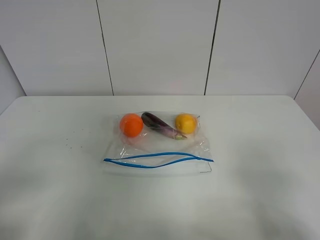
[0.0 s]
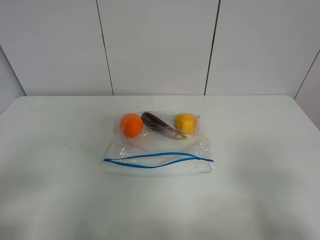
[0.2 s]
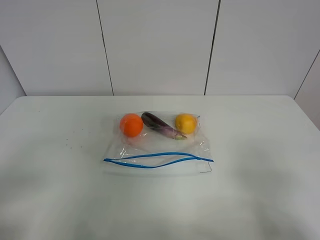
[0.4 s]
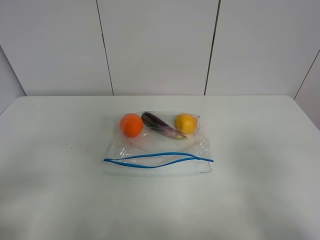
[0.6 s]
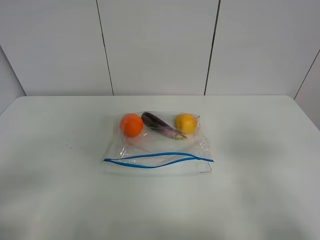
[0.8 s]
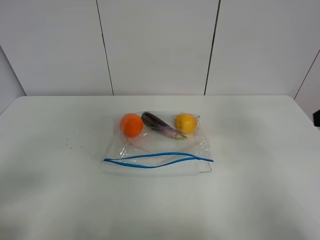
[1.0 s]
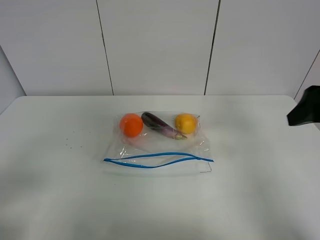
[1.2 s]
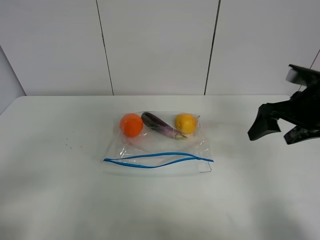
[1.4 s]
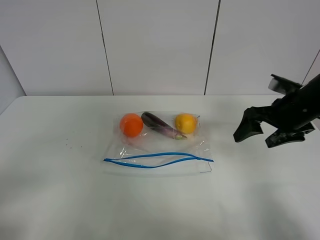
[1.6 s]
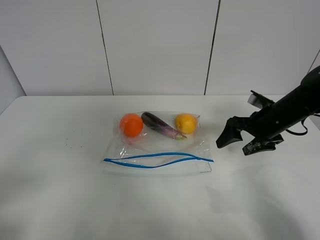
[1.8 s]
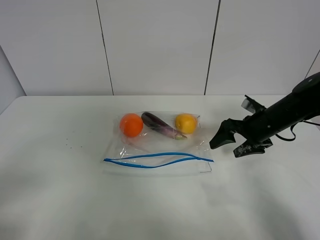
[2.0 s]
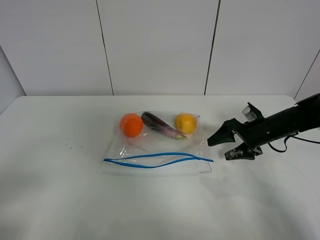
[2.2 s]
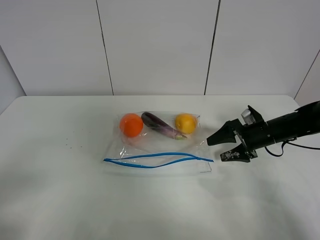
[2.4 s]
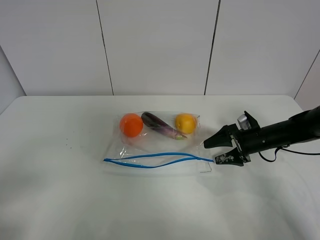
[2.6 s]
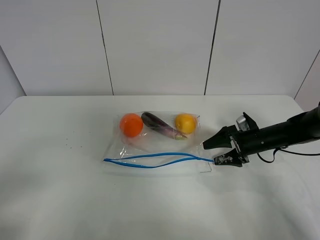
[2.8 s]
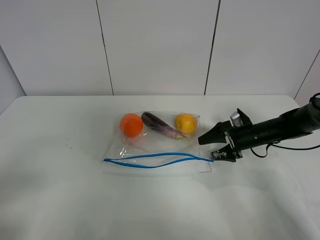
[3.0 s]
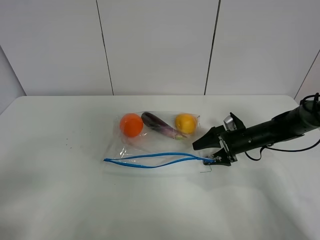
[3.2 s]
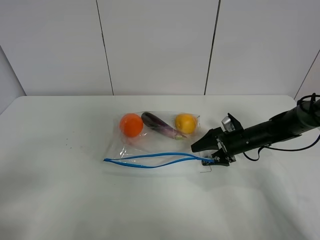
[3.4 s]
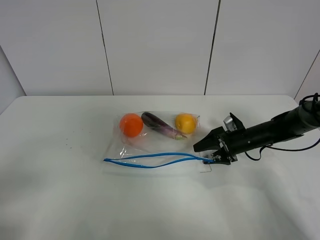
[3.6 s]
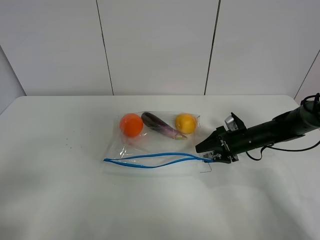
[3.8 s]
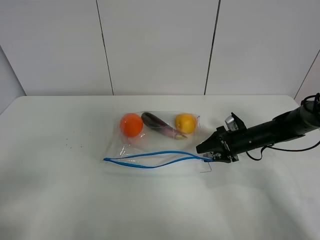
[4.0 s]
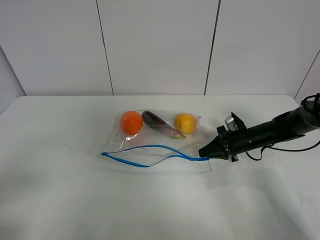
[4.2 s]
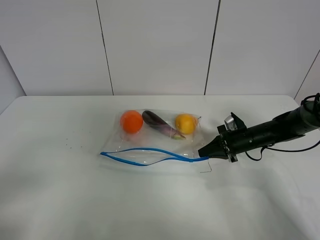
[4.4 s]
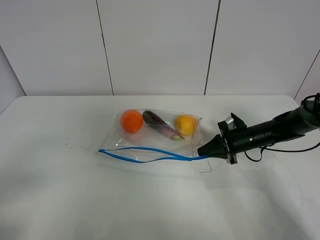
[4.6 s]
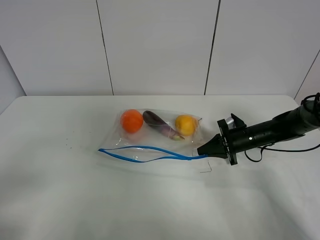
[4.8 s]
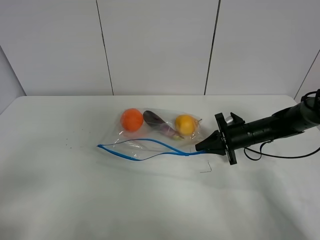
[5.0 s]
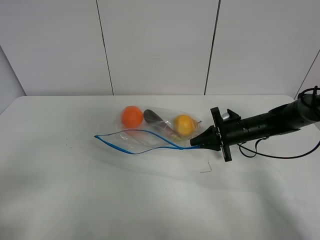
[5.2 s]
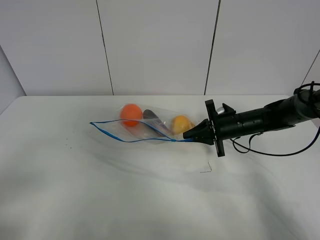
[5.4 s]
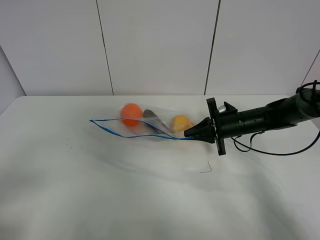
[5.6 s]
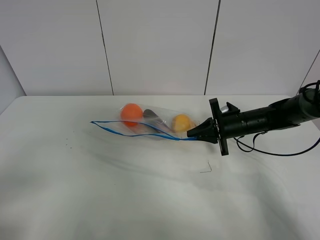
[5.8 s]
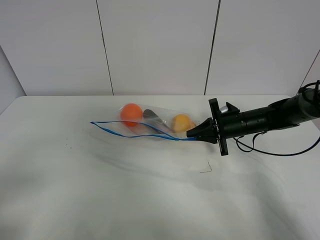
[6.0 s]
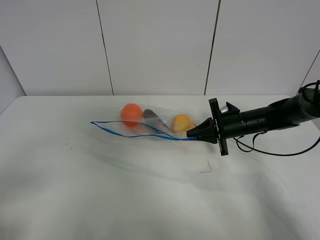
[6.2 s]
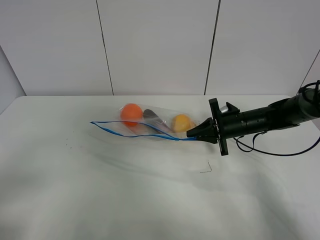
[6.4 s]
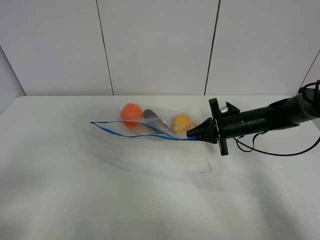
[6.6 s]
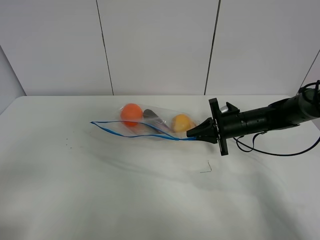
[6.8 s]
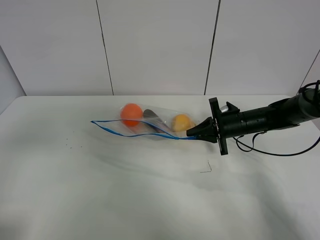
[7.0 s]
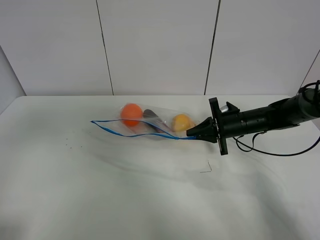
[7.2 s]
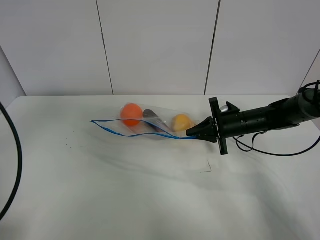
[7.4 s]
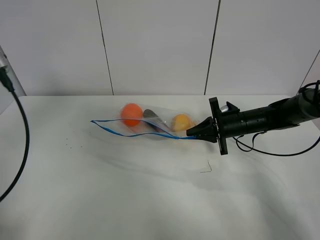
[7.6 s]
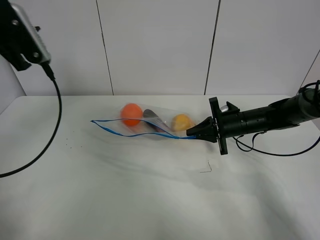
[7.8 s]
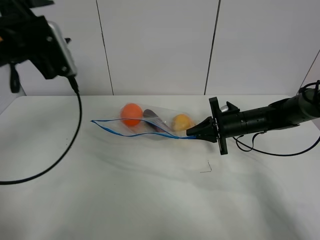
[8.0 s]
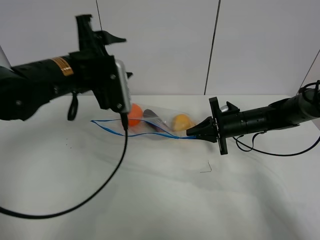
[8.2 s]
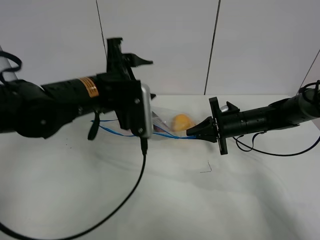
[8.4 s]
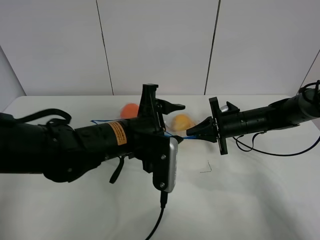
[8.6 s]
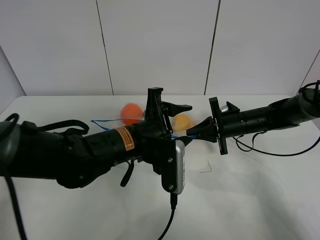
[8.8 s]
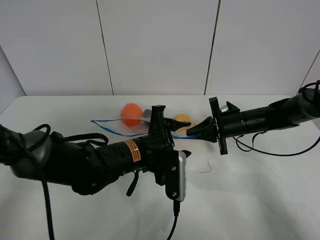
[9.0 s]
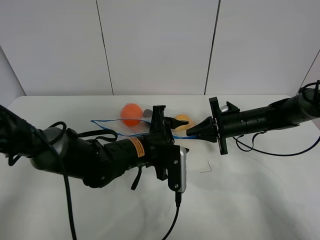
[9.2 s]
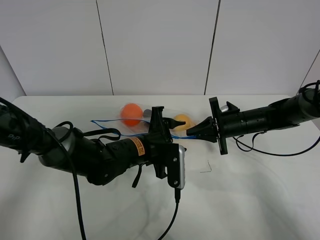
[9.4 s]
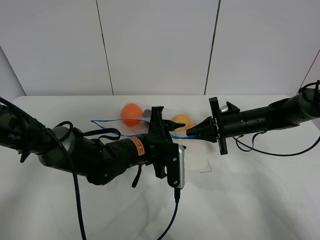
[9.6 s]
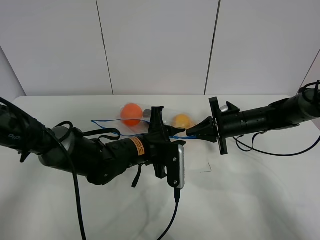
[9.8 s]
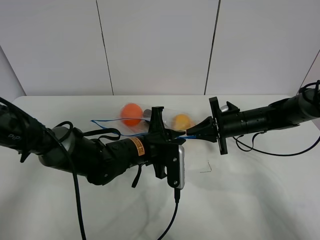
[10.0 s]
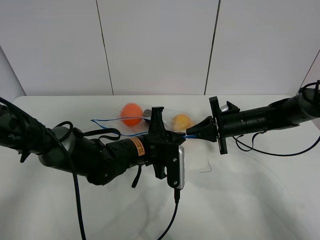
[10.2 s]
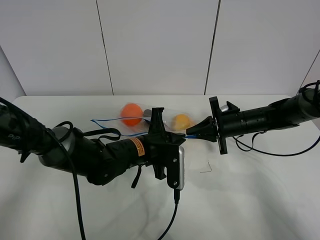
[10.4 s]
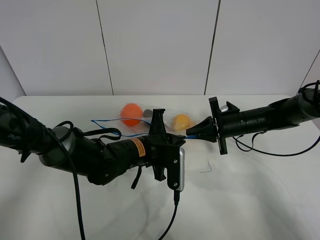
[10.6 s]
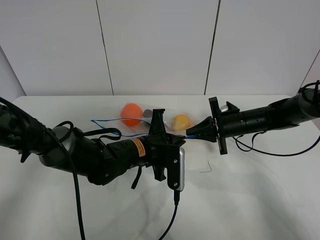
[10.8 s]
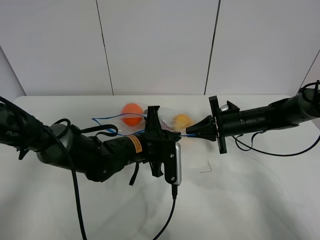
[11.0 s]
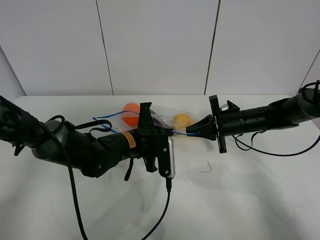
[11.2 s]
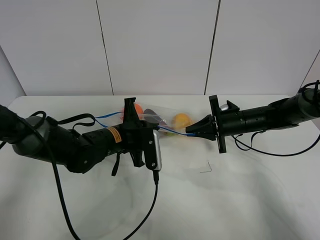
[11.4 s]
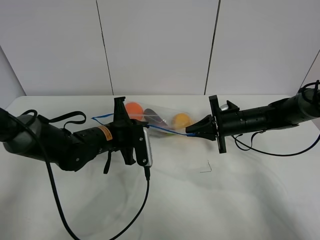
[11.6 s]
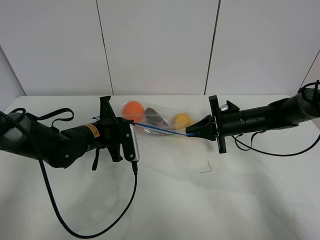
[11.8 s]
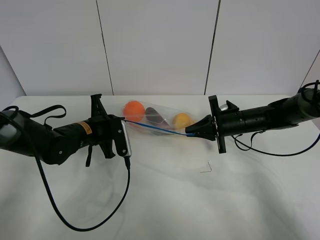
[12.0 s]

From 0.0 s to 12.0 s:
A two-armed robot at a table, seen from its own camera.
Step, from 0.0 s to 4.4 s: Grasp the fruit bag with right gripper.
Step, from 4.6 s to 5.6 s: Lift the fruit bag with your right gripper.
From 0.0 s to 1.6 s: The right gripper heads forward, covering approximately 30 cm.
From 1.6 s to 3.0 s: The right gripper shifts roughly 15 cm downward and forward.
From 3.0 s to 4.4 s: The right gripper closes.
From 4.4 s to 6.0 s: The right gripper shifts by roughly 5 cm.
From 6.0 s to 7.6 s: The left gripper is displaced forward and upward by roughly 25 cm.
From 7.6 s to 9.0 s: The left gripper goes roughly 35 cm to the right and downward.
From 9.0 s to 10.4 s: The left gripper closes up.
From 10.4 s to 12.0 s: The left gripper travels to the left and forward by about 15 cm.

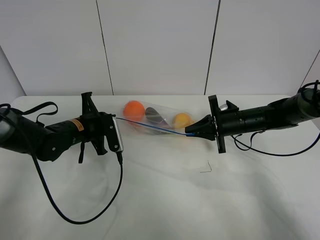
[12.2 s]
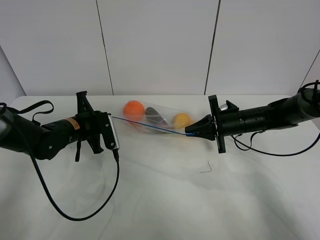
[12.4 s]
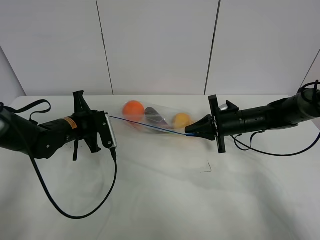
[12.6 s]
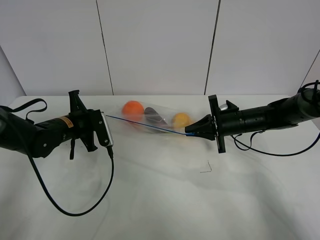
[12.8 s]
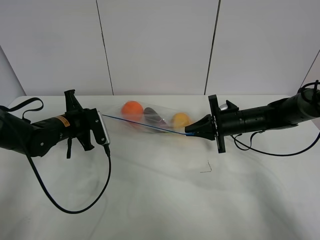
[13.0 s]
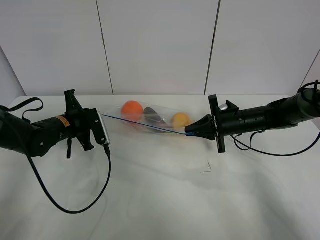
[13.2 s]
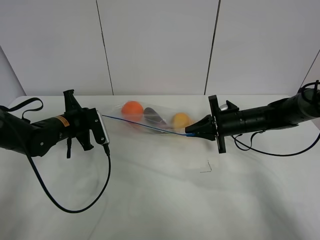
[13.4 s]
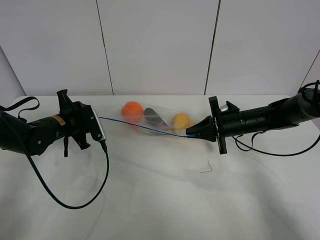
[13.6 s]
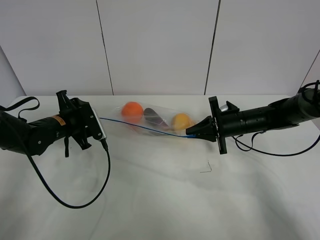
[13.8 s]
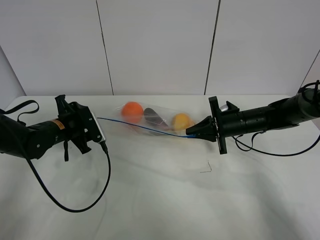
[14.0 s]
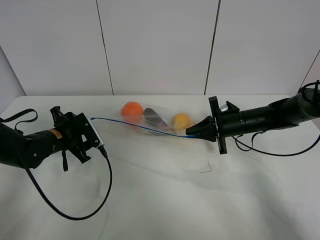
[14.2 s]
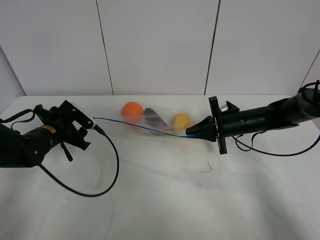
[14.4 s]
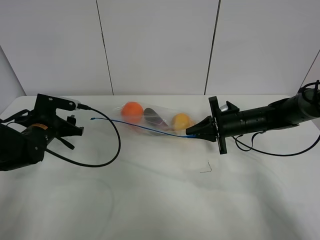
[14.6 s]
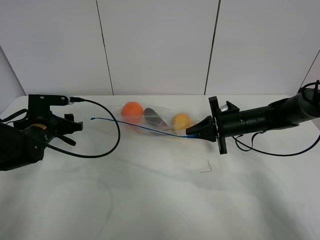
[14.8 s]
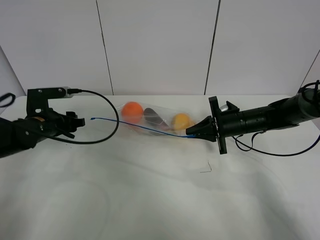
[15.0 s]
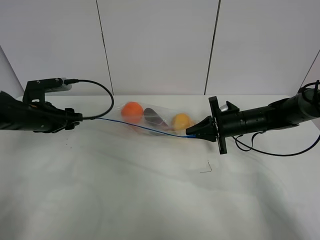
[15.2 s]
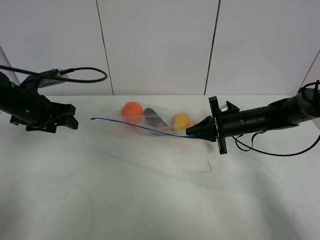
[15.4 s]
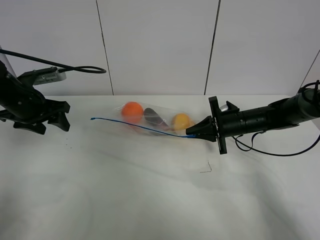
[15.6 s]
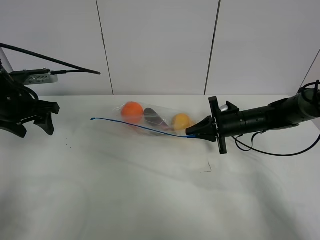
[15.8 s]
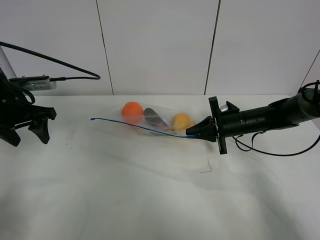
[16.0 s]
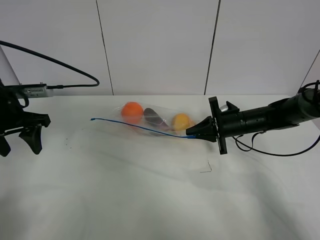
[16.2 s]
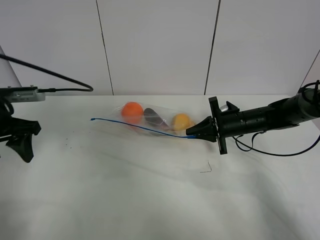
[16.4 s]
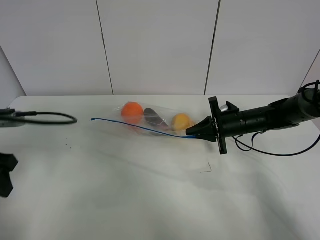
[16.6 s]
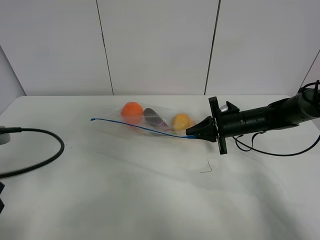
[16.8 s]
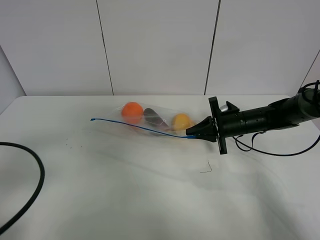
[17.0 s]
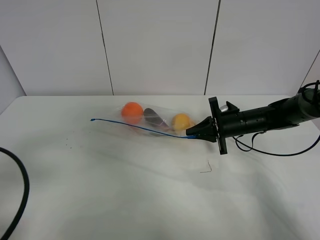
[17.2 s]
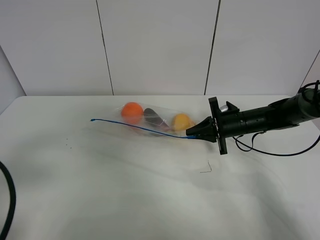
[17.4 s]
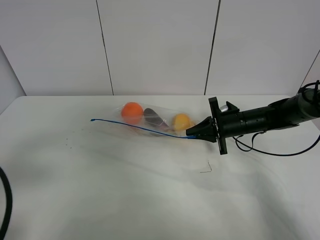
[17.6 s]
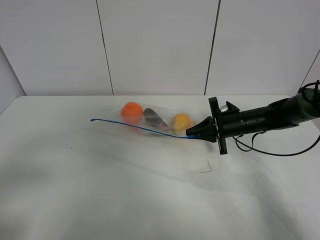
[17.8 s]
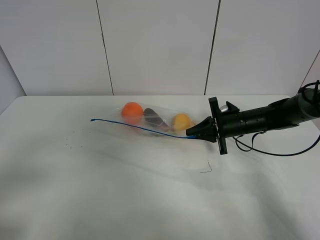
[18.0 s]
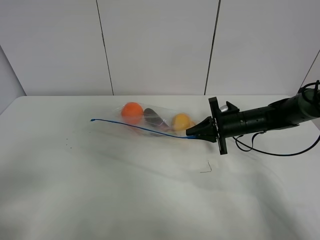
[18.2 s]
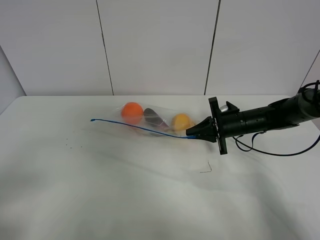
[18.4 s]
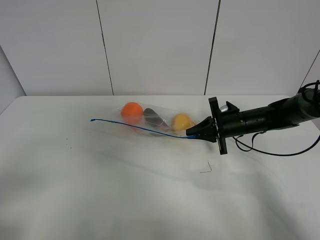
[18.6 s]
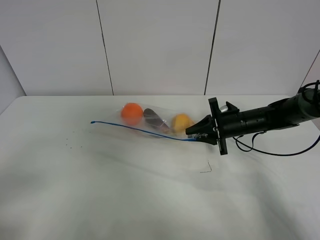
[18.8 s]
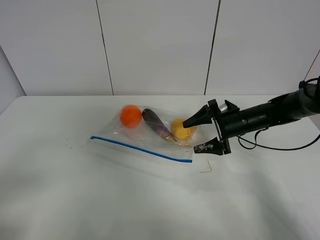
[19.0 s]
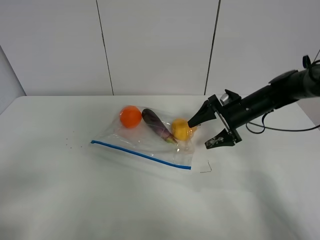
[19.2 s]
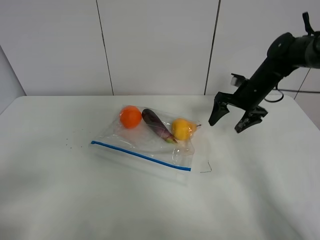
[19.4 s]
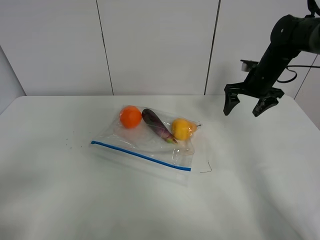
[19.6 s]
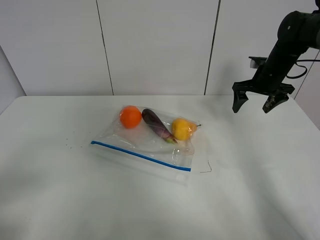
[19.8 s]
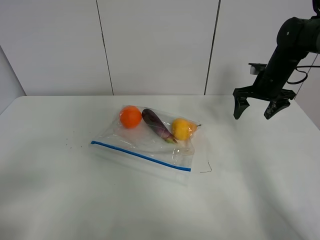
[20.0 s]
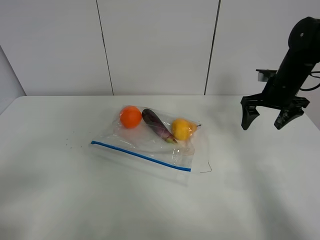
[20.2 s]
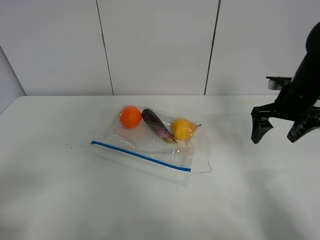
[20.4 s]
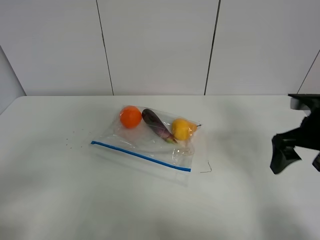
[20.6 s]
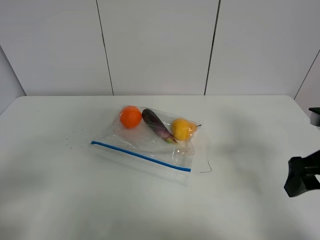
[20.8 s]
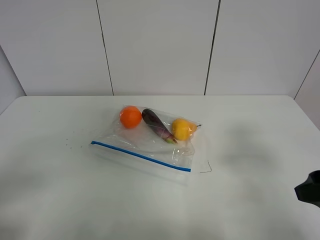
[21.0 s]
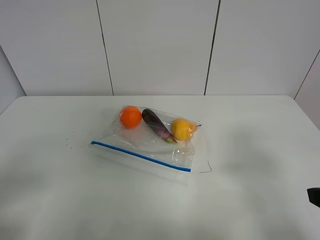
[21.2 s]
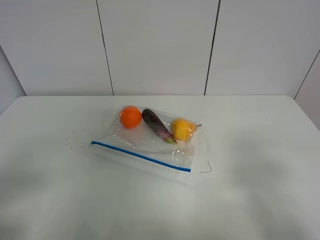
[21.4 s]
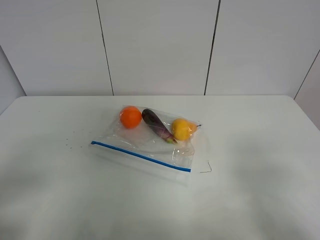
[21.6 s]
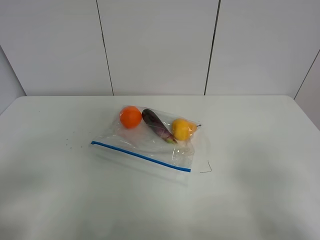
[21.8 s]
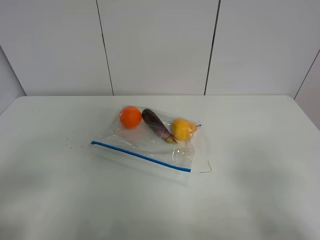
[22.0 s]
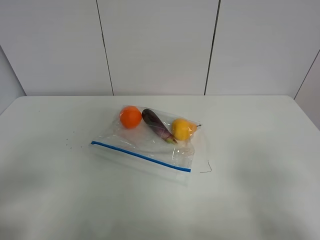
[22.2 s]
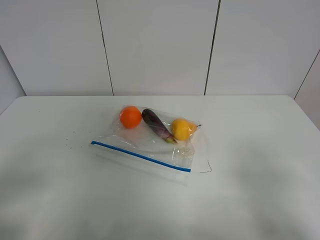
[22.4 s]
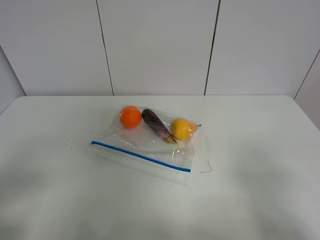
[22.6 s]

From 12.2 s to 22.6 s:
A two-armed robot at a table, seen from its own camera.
From 12.2 s to 13.6 s: The left gripper opens its fingers.
From 13.6 s to 15.2 s: The left gripper shifts by approximately 5 cm.
From 15.2 s to 16.6 s: The left gripper goes some 15 cm backward and upward.
From 16.6 s to 18.2 s: The left gripper heads backward, covering approximately 20 cm.
From 18.2 s to 19.6 s: The right gripper moves upward and forward, some 15 cm, and opens its fingers.
From 19.6 s to 21.2 s: The right gripper shifts some 35 cm backward.
